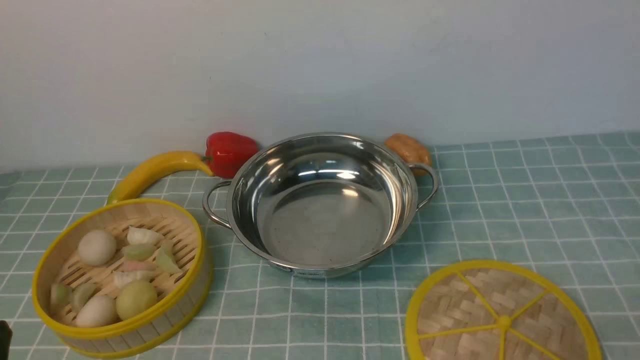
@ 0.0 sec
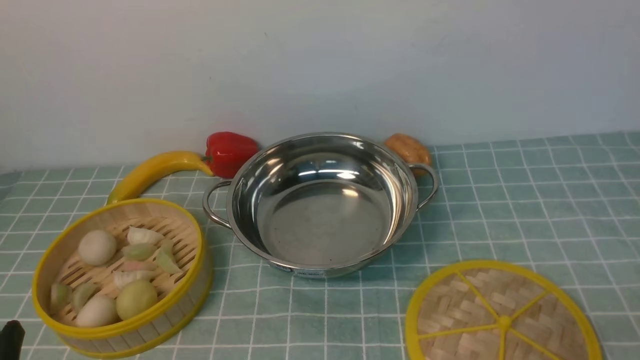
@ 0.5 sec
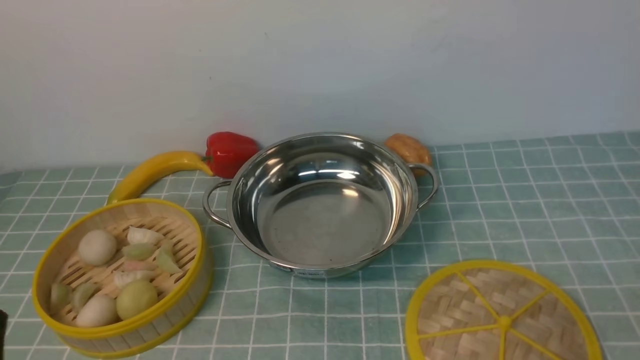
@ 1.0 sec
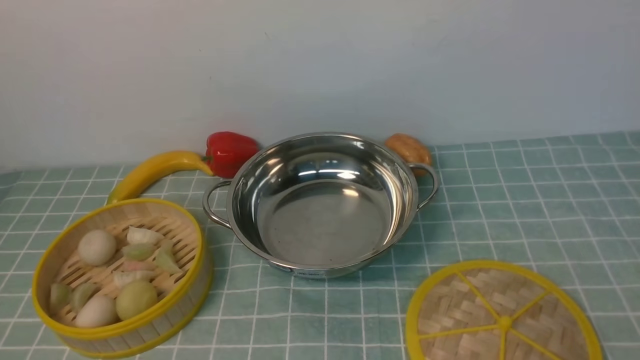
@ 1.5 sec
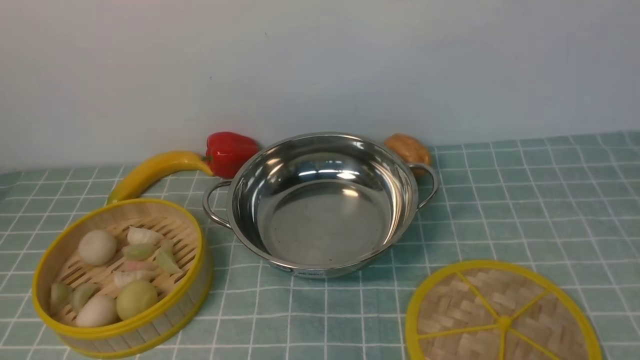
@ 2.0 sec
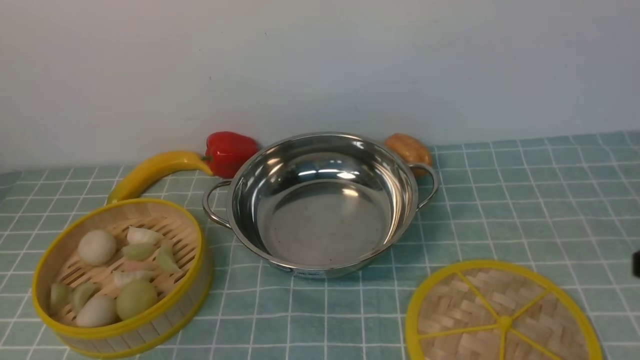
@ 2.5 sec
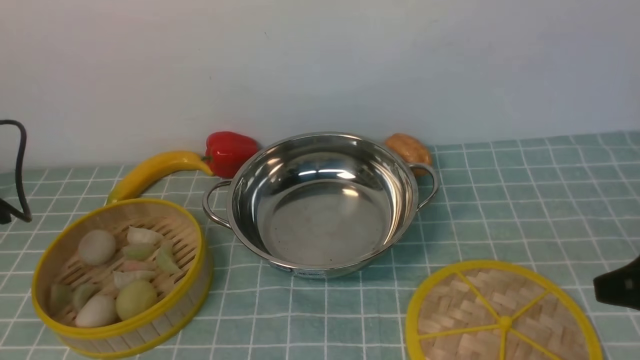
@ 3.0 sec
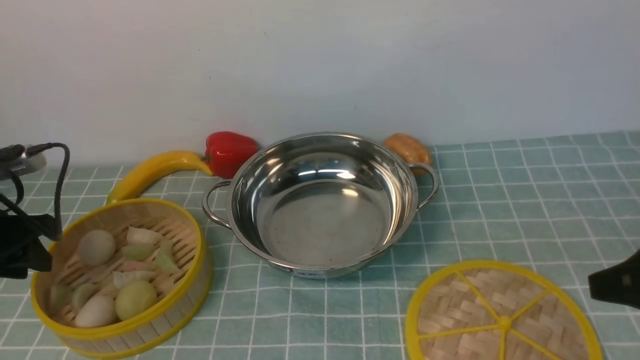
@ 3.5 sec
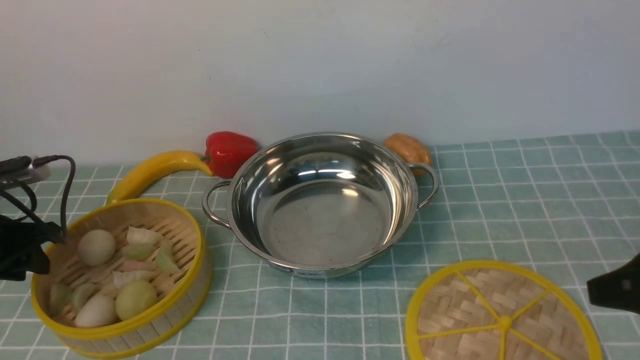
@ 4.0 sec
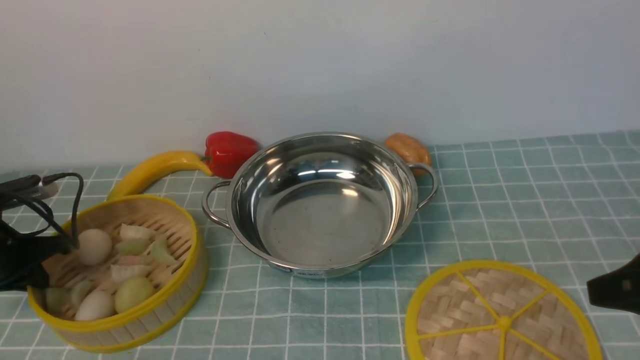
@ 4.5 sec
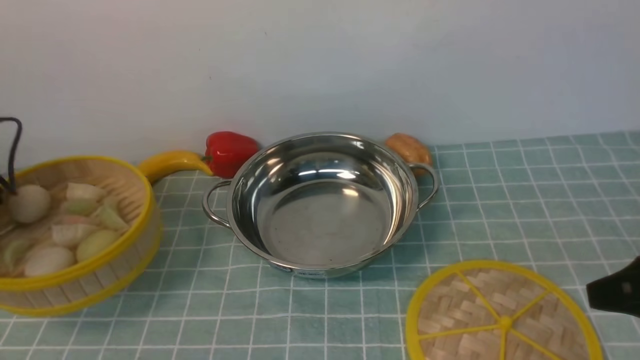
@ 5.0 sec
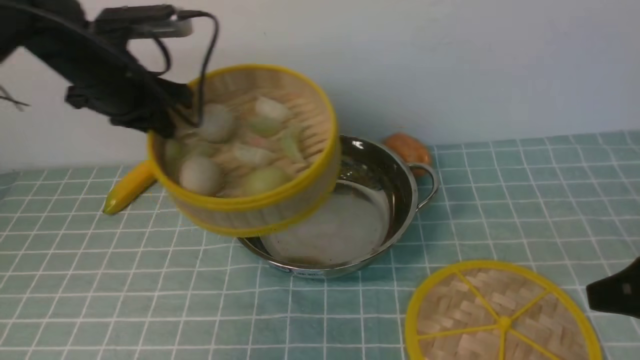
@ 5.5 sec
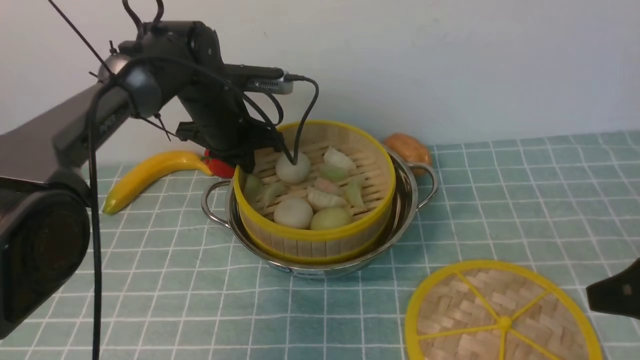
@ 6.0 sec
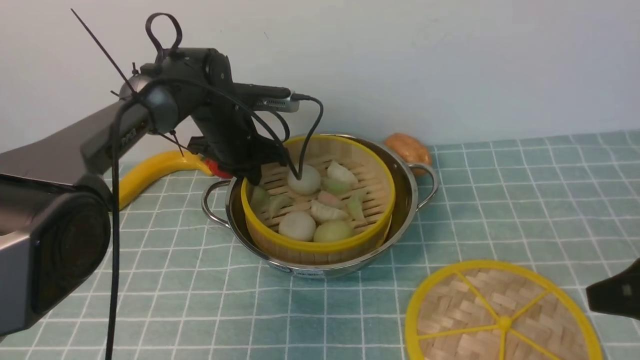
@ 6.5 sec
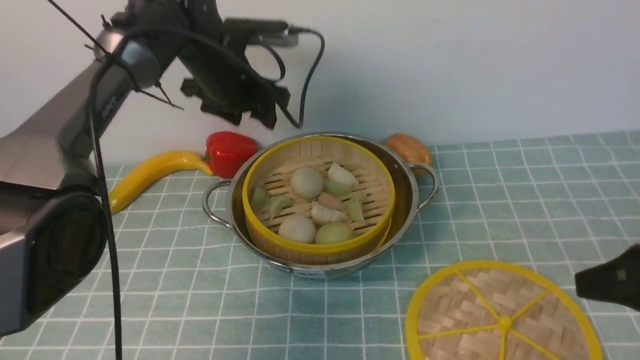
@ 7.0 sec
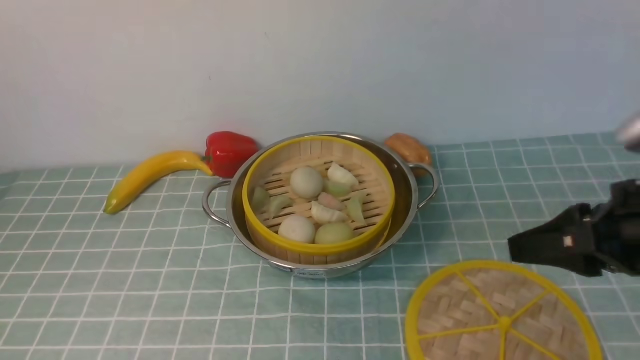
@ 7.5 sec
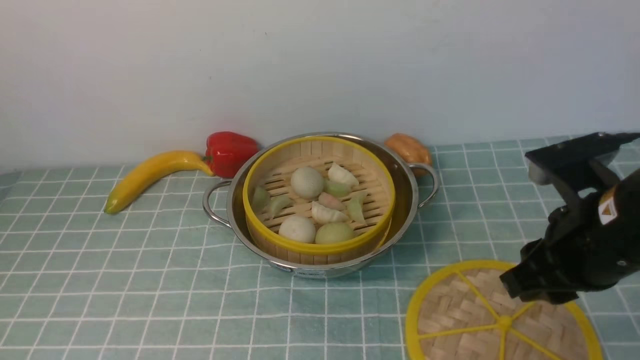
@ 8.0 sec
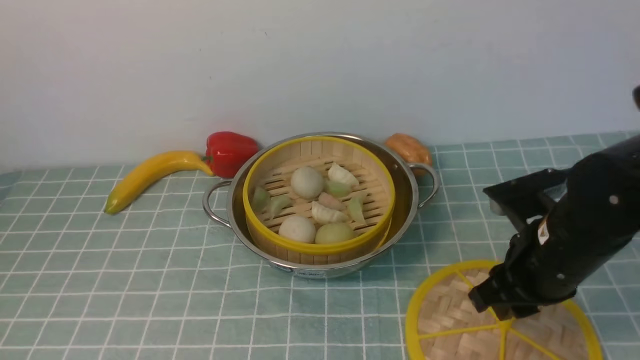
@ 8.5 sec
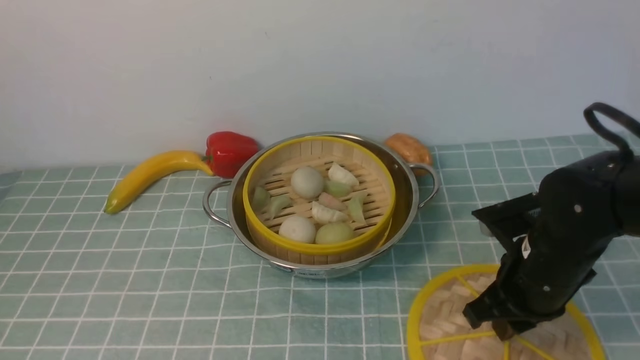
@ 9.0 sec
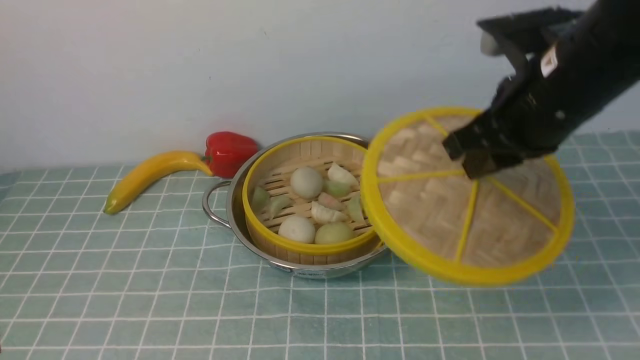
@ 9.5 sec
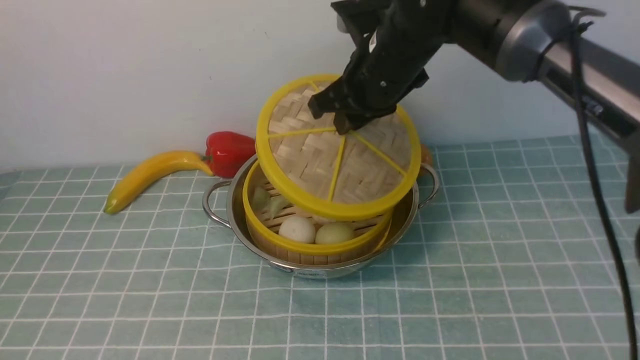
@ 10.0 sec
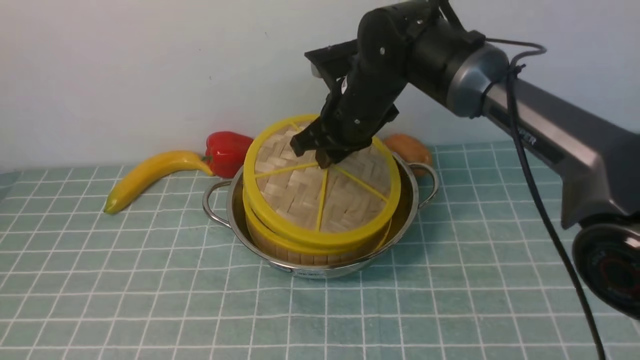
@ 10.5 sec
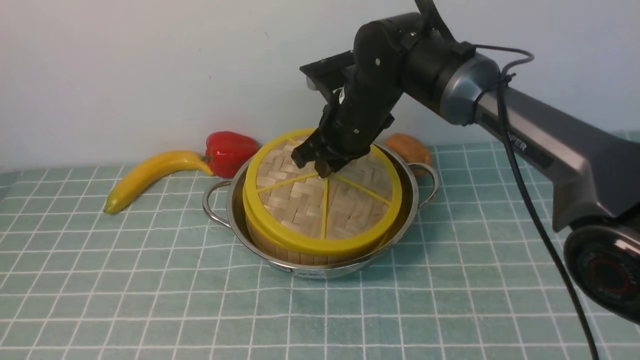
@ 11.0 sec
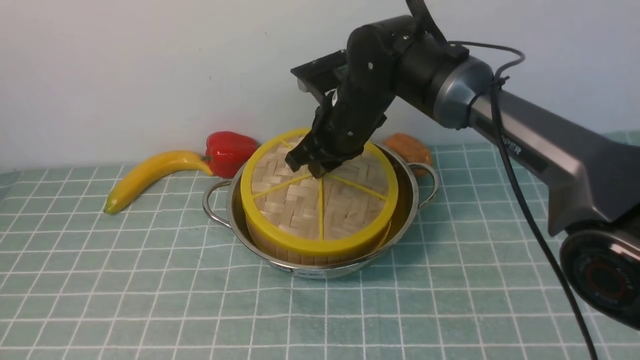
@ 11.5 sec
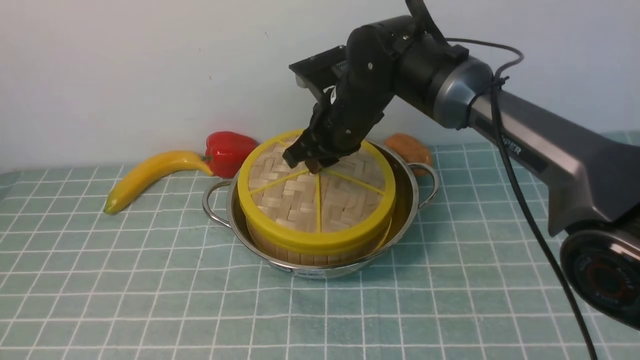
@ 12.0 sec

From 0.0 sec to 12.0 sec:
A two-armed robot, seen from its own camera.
Task of the whole recording: place the steamer in the pot on the blue tablecloth, and put the lid on the steamer.
Step, from 0.0 sec to 5.0 sec: use the left arm to lift the steamer closest to it.
Step, from 5.5 sec to 7.0 sec: use the left arm to put the steamer into the iron steamer pot in the middle.
Step, from 7.5 sec to 9.0 sec: use the right arm to lift the lid of the steamer.
From 2.0 sec to 4.0 sec: The left gripper travels forward, downward and to the left by some 35 cm; the right gripper moves downward and forward, roughly 10 cm.
From 4.0 sec to 6.0 sec: The left gripper is displaced to the right and forward by about 30 cm, and closes.
From 6.0 sec to 8.0 sec: The left gripper travels backward and upward by approximately 50 cm, and opens, then closes again. Meanwhile the right gripper moves to the left and forward, roughly 10 cm.
From 8.0 sec to 10.0 sec: The left gripper travels downward by approximately 25 cm, while the right gripper heads forward and to the left, covering roughly 25 cm.
From 10.0 sec to 12.0 sec: The right gripper heads downward, covering some 5 cm.

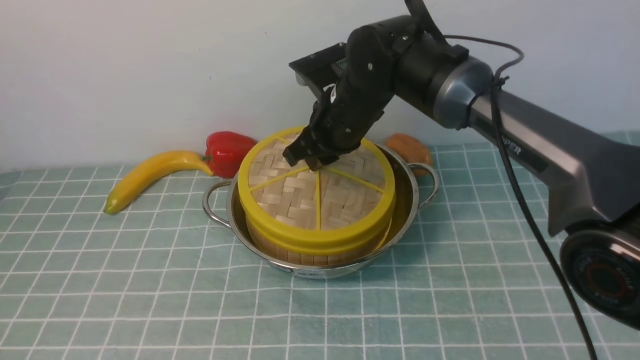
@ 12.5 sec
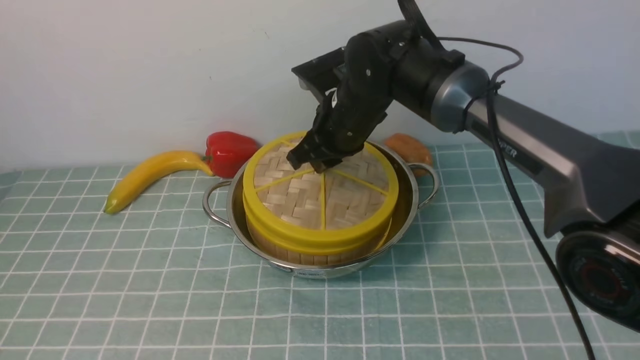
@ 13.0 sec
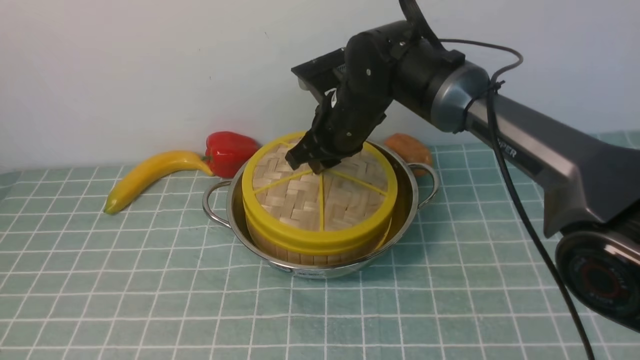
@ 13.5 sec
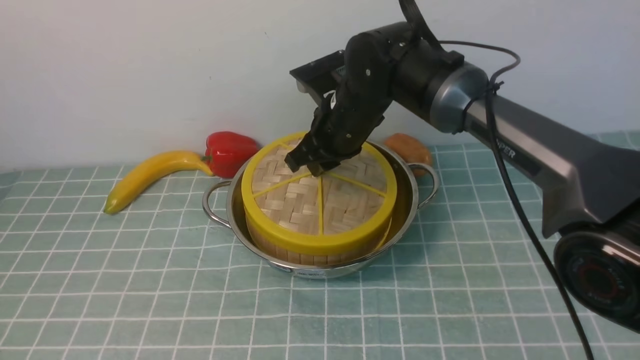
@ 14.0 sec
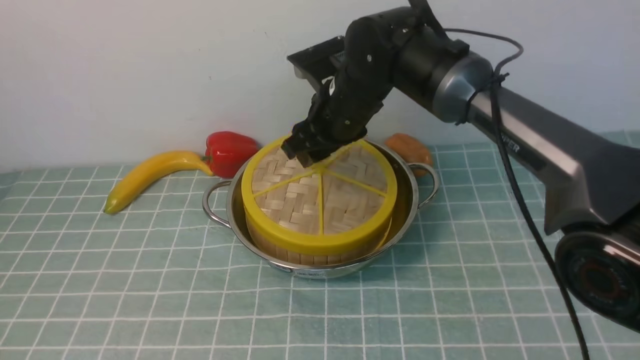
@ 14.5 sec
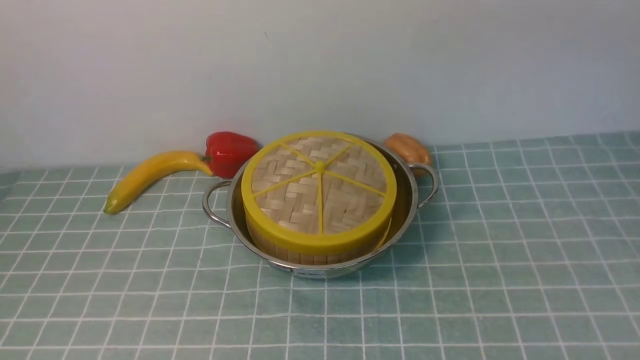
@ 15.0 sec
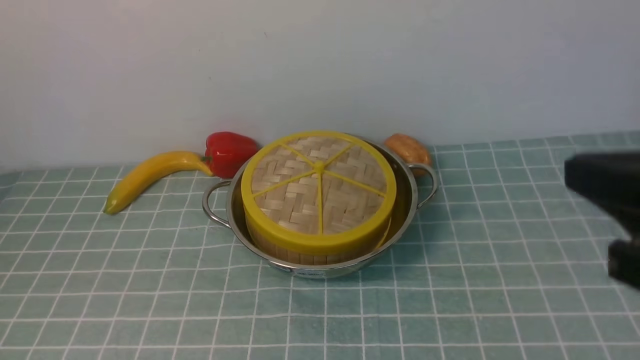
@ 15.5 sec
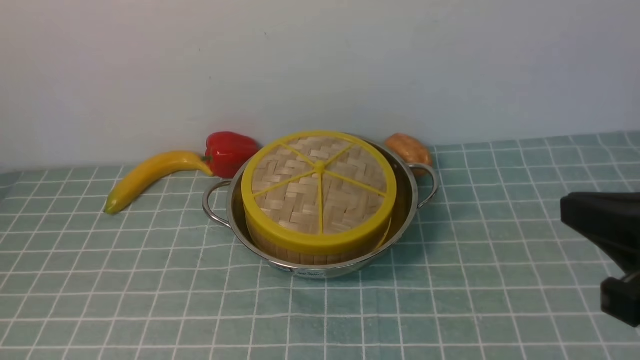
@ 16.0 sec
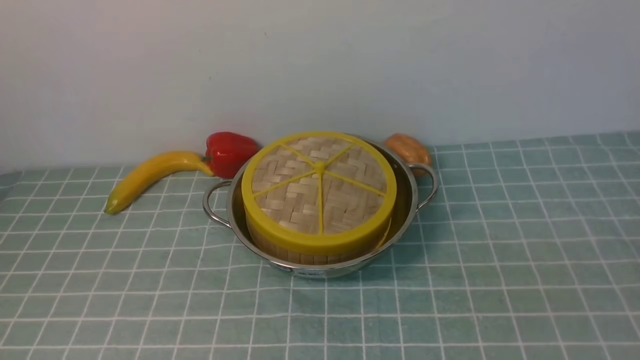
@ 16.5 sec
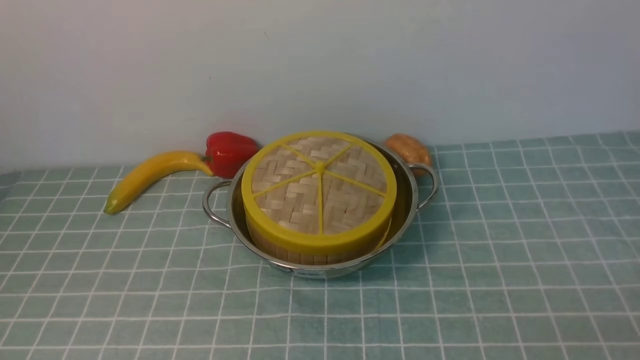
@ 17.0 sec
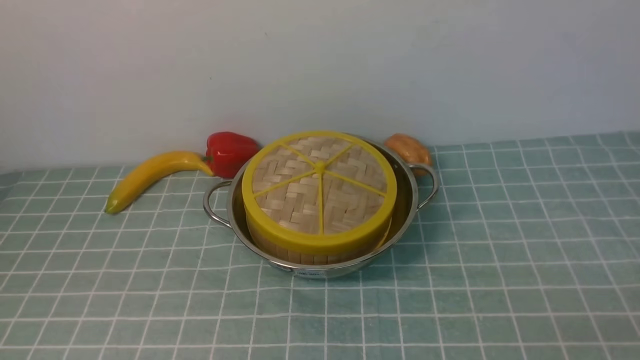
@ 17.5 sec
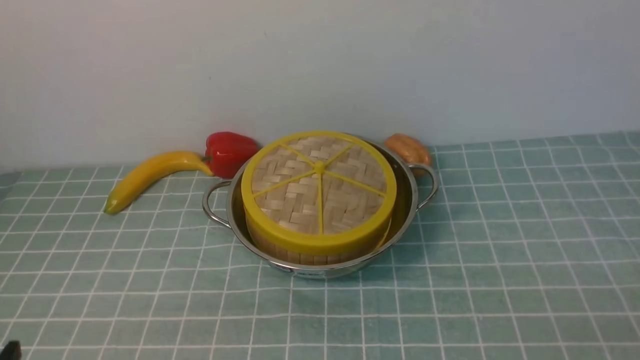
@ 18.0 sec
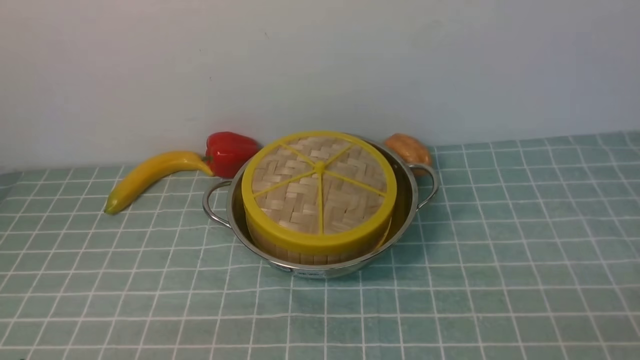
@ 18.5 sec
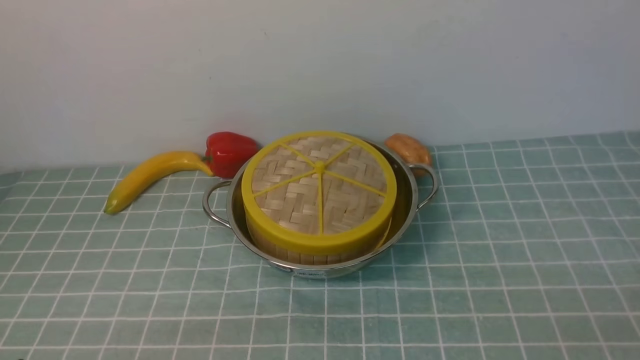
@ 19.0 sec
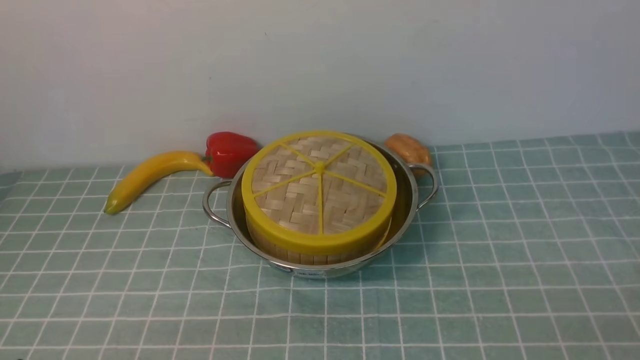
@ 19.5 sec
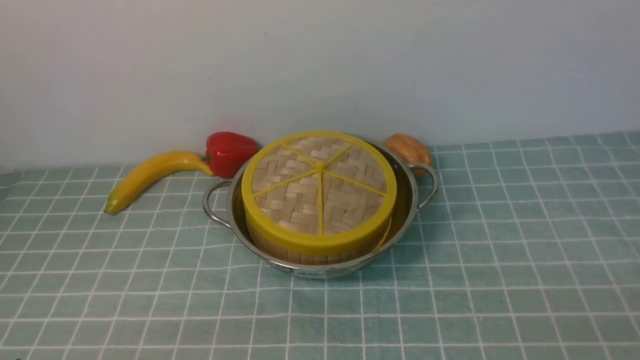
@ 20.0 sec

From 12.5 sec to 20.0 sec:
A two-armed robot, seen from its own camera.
Task of the whole recording: place the steamer in the pot on the blue tablecloth, and put the lid on the steamer.
Step, from 12.5 sec to 15.0 sec: use the right arm to place the steamer lid on the steamer.
From 12.5 sec to 14.5 sec: The right gripper opens up.
From 14.5 sec to 16.5 sec: The right gripper heads backward and to the right, covering approximately 40 cm, and closes.
